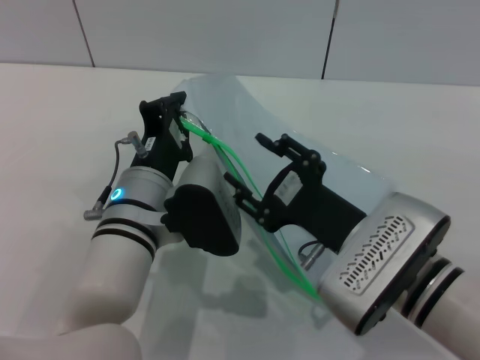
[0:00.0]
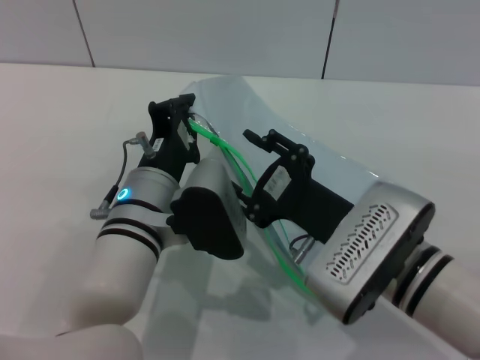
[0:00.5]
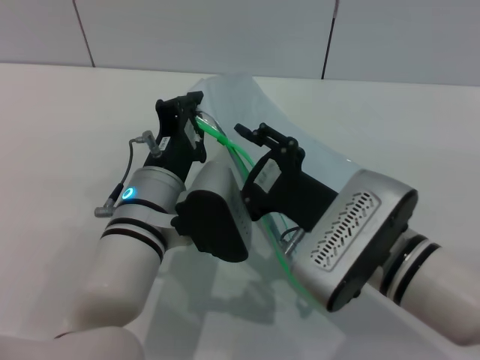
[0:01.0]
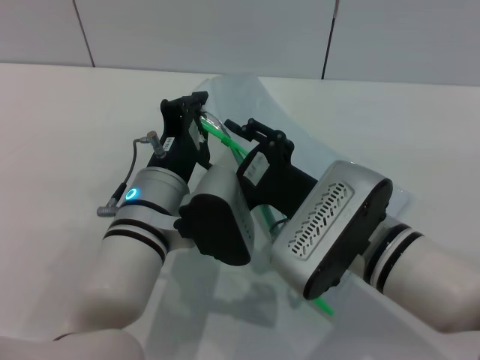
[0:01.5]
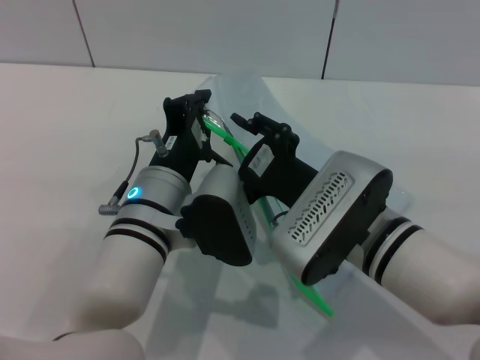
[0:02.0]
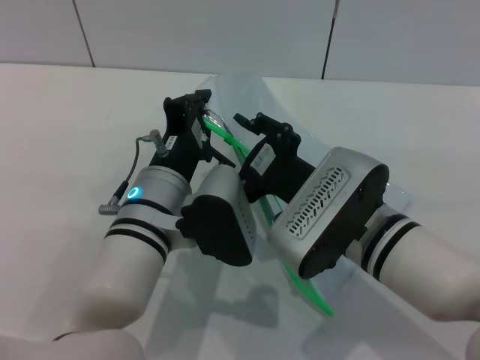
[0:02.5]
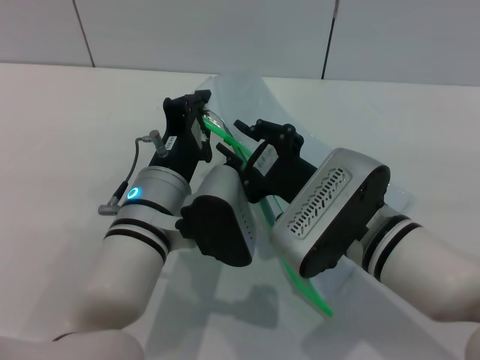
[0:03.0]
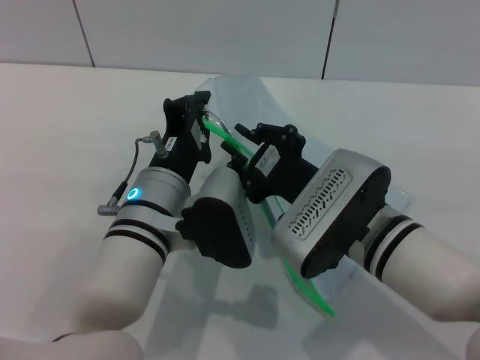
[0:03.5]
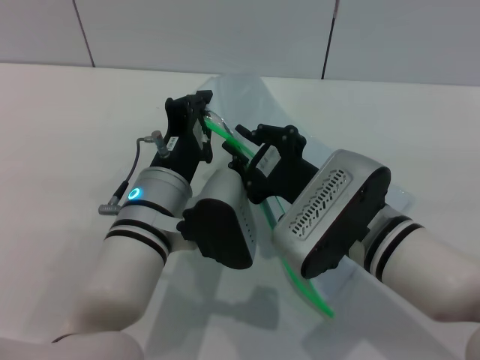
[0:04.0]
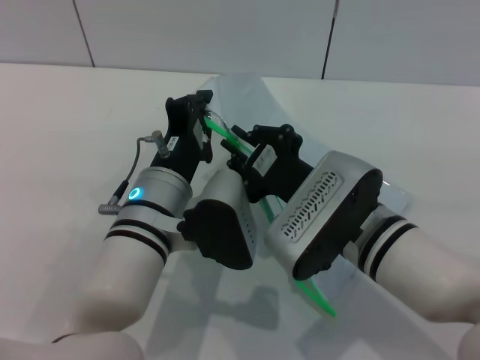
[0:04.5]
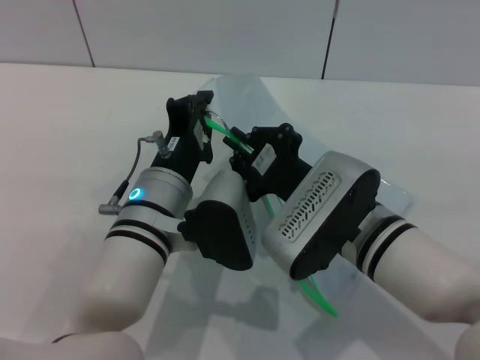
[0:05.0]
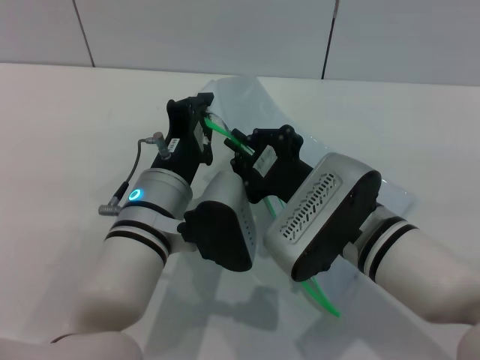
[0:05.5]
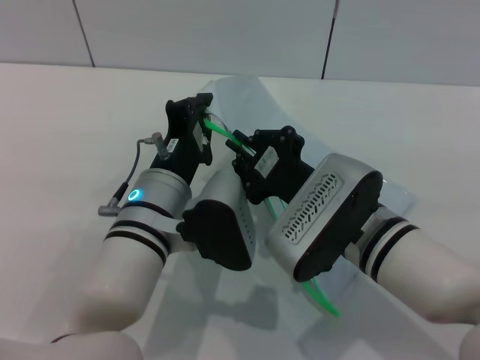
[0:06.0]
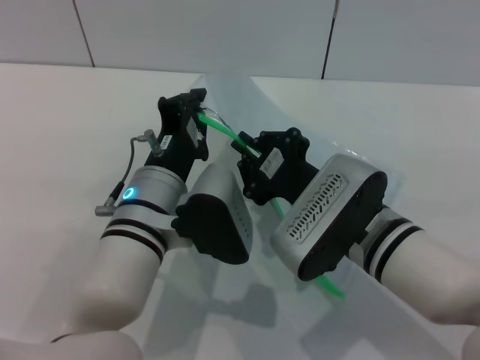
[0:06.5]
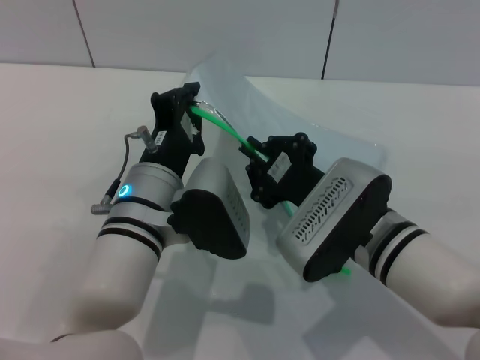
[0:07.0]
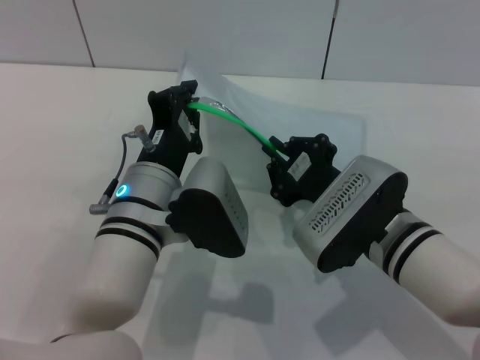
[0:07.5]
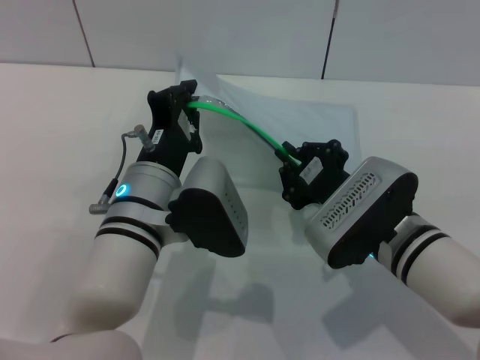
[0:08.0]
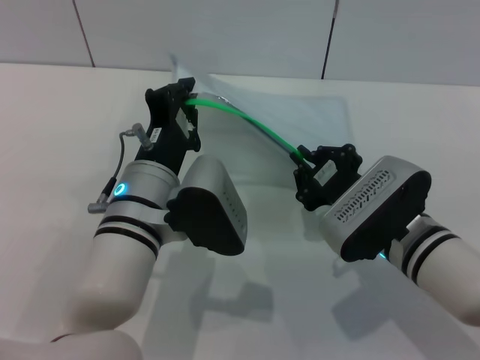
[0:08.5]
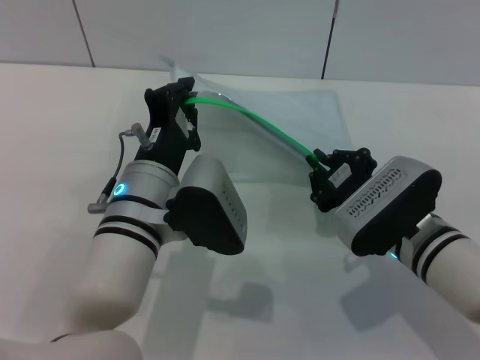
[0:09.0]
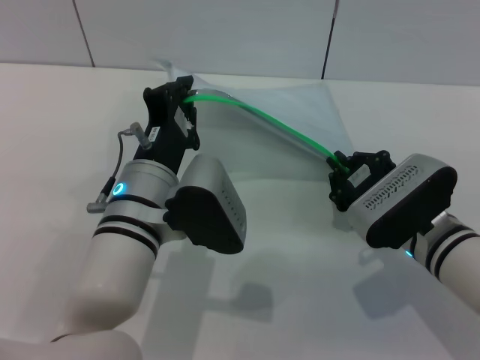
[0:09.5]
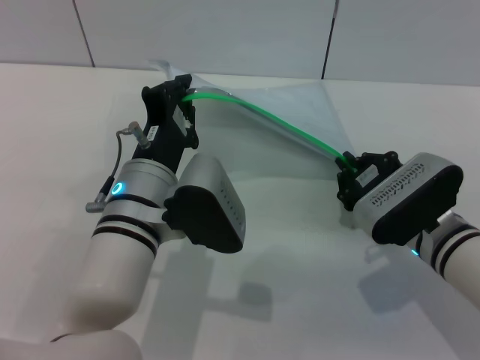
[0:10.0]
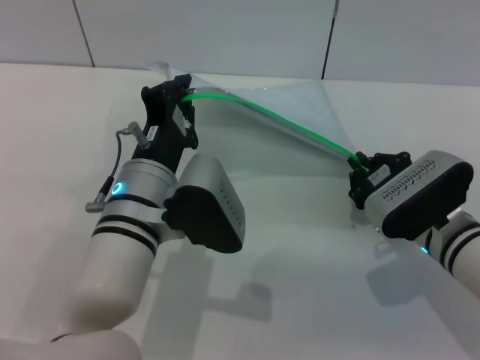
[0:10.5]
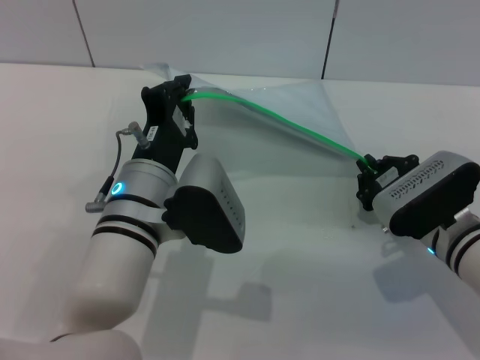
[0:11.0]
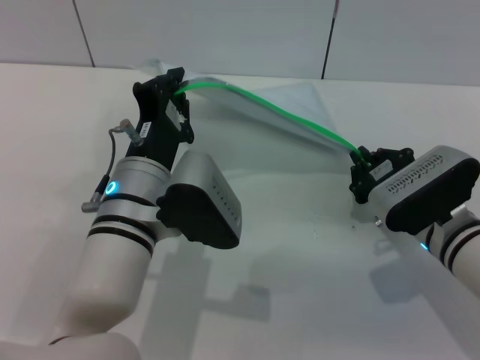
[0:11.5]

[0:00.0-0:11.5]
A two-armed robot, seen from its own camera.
0:02.0 to 0:04.0: The right gripper closes its fingers.
0:04.0 to 0:06.0: Both grippers stay put.
0:06.0 to 0:07.5: The grippers make only small movements.
0:07.5 to 0:09.5: The right gripper travels to the right by some 5 cm.
0:09.5 to 0:11.5: The grippers stay close to where they were, moving slightly.

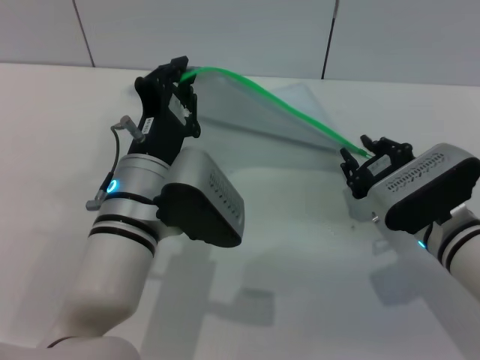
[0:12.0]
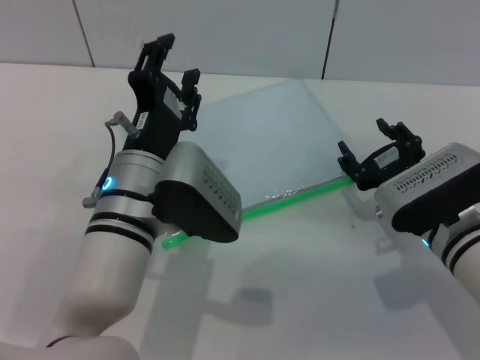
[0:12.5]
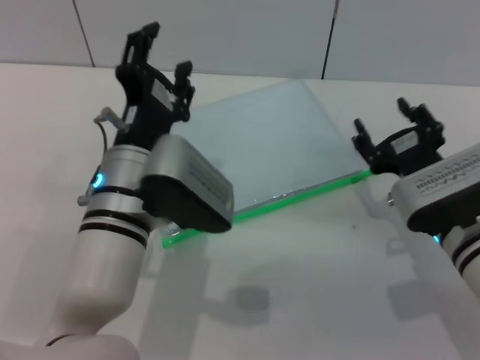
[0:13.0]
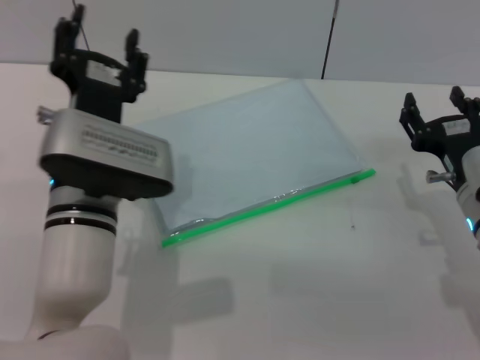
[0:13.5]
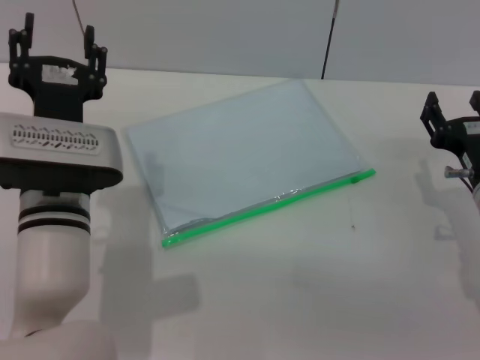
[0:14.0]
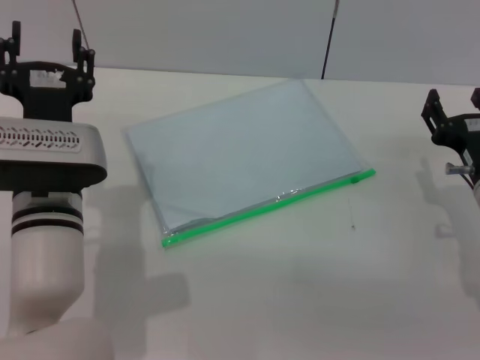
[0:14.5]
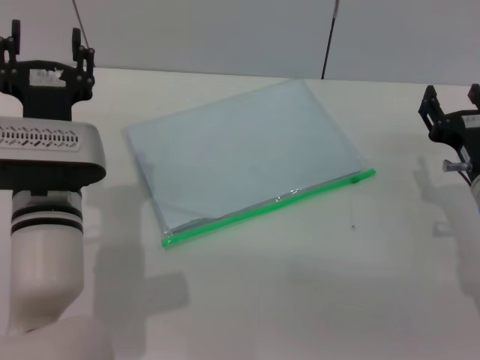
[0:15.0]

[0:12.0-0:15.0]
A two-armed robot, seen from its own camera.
Step, 0:12.5 to 0:13.0: Place the transparent plastic bag.
0:12.0 to 0:13.5: The right gripper opens; the left gripper opens up.
0:13.5 to 0:15.0: There are only small adjustments of the grippers.
